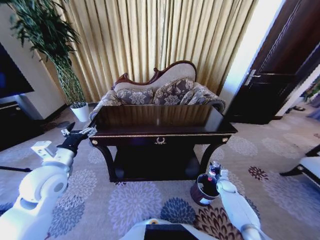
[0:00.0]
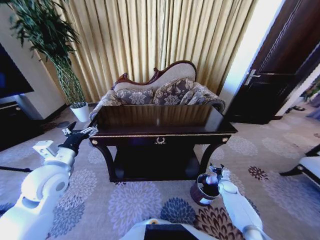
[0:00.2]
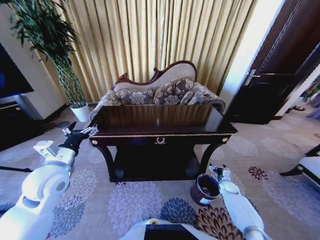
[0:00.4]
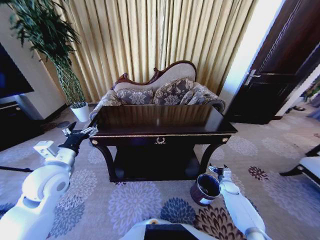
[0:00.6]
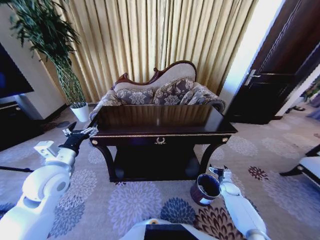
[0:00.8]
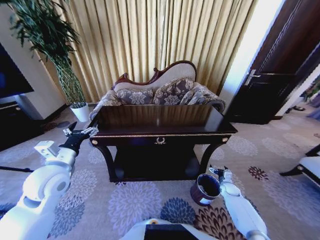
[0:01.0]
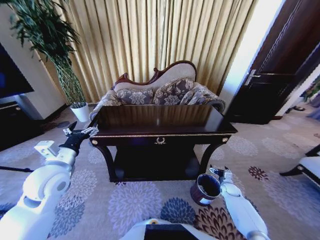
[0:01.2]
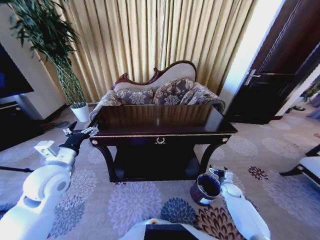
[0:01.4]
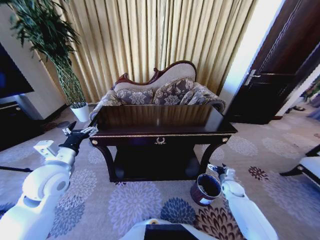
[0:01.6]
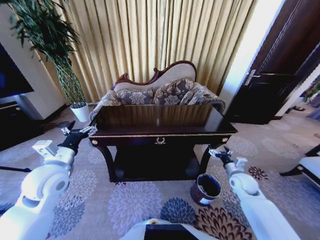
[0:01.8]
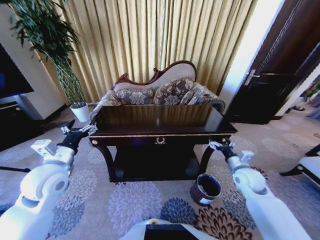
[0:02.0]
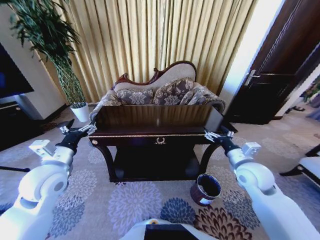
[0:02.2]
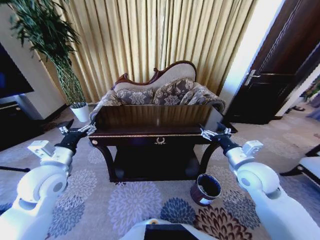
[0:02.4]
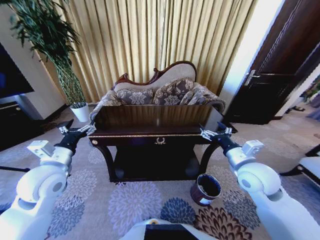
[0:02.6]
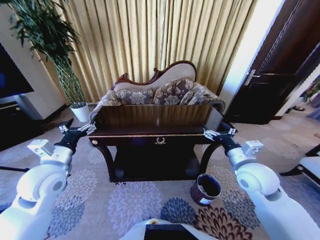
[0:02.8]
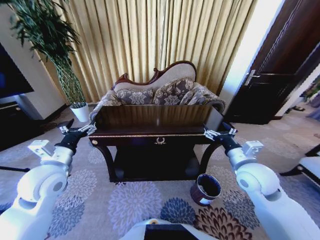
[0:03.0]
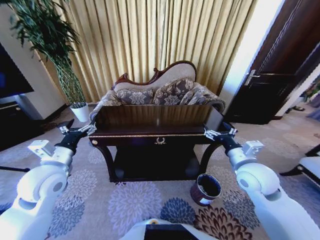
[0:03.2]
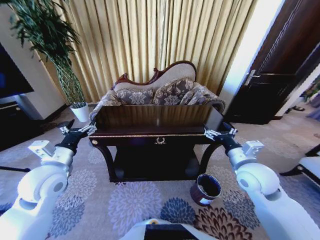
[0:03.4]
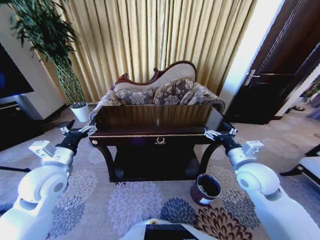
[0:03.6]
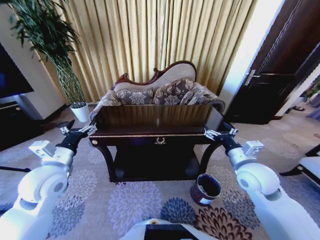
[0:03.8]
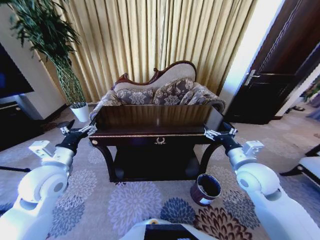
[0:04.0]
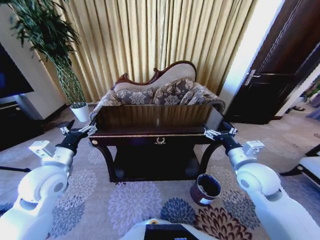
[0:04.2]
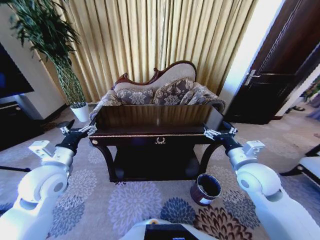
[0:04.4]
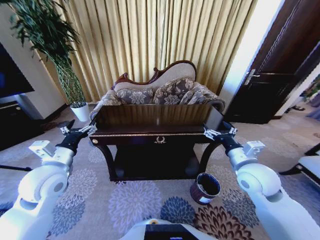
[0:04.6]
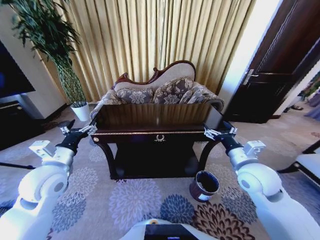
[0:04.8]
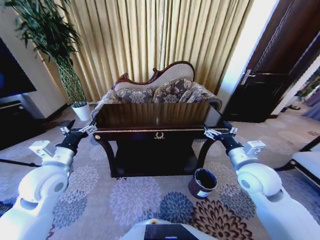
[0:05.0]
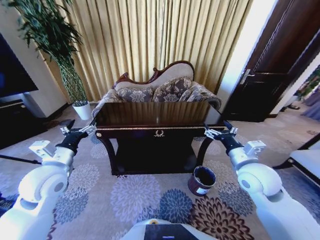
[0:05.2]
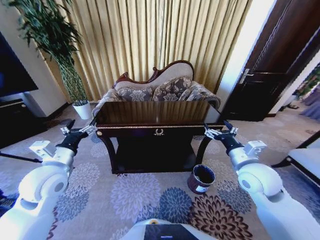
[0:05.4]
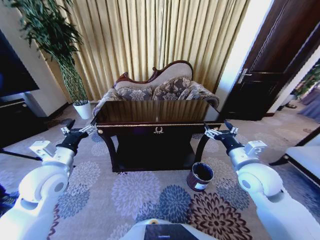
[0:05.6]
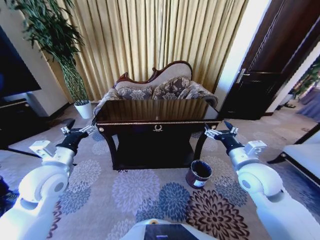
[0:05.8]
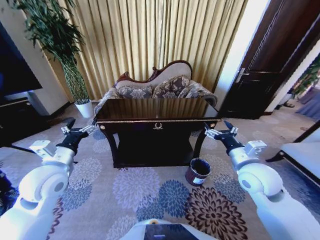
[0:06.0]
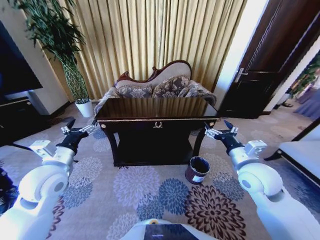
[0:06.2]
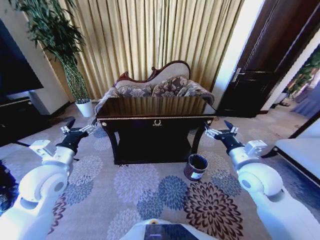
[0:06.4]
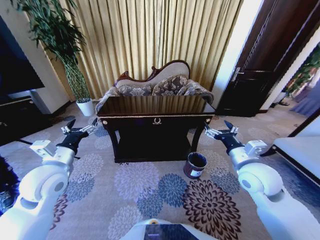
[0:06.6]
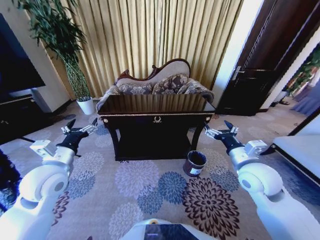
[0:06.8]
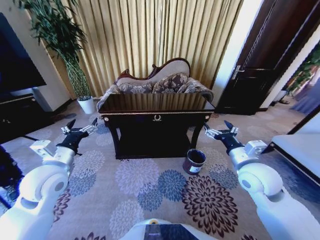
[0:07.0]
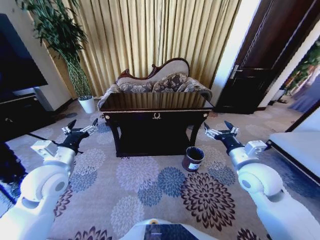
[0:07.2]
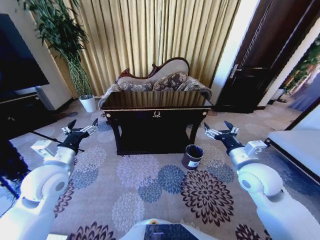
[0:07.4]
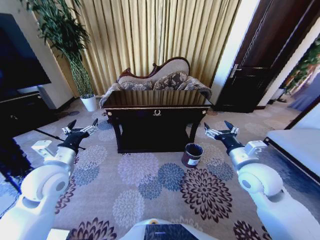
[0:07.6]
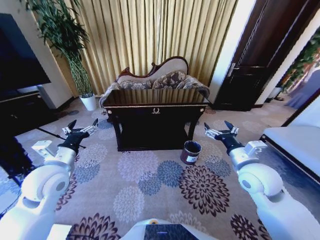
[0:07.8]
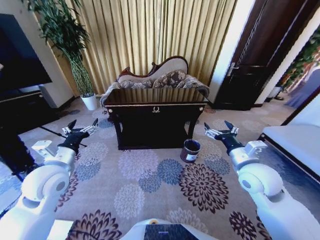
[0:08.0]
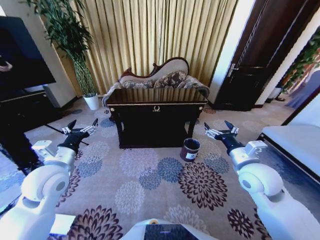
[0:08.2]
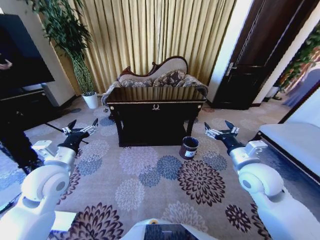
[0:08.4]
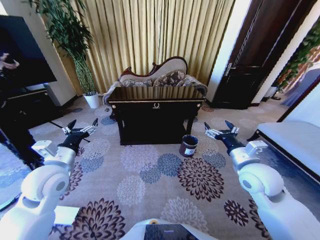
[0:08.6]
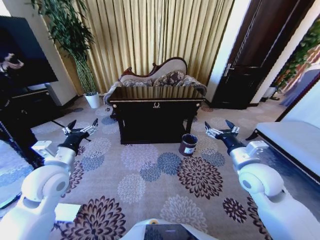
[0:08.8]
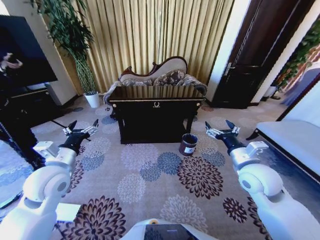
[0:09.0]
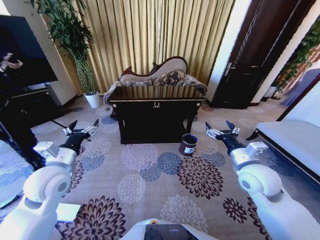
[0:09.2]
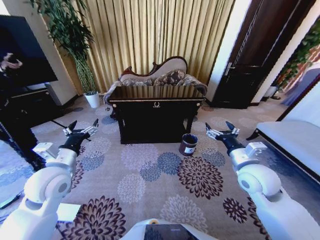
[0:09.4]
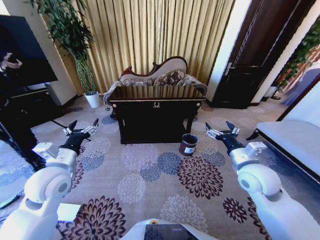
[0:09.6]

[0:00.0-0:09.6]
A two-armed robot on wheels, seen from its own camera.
Task of the whole recording: Move to the front of the table and place the trash on the table into the trash bin.
0:00.0 to 0:01.6: The right gripper is displaced upward by approximately 10 cm, and opens.
0:01.6 to 0:03.2: The right gripper goes approximately 30 cm upward and to the left.
0:03.2 to 0:04.8: Neither gripper changes place.

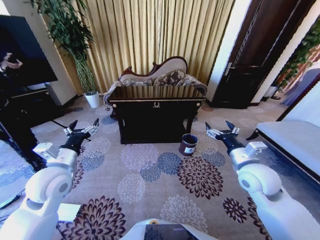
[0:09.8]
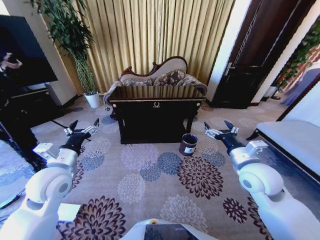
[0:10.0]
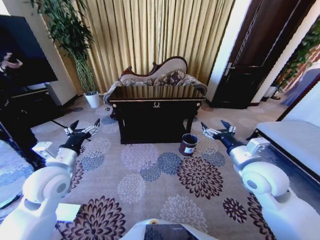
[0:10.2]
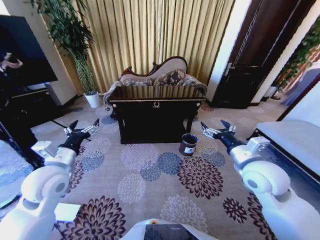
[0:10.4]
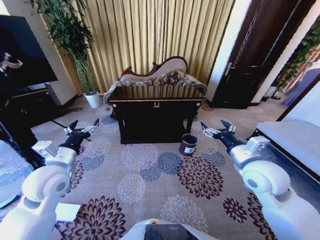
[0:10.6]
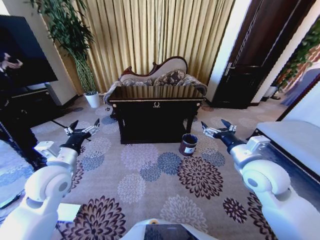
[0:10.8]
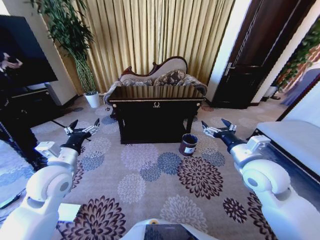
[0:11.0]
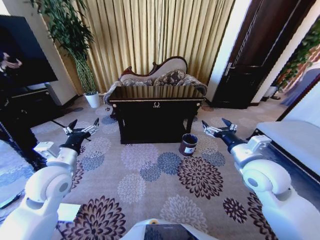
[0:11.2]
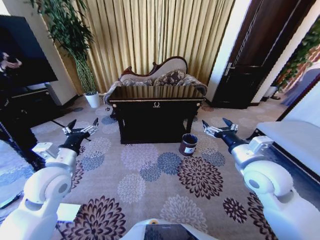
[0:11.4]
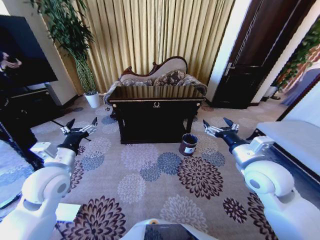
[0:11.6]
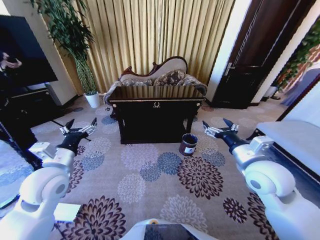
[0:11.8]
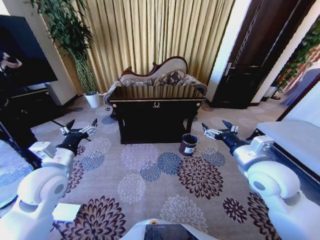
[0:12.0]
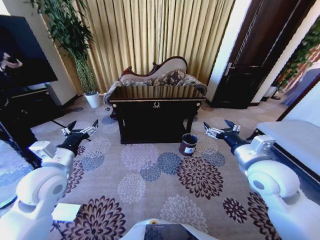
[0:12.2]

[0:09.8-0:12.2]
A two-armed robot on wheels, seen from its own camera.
Task of the whole recording: Move to the front of the table and place the trash on the table into the trash bin.
0:09.8 to 0:12.2: The grippers move only a little.

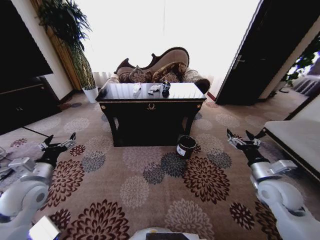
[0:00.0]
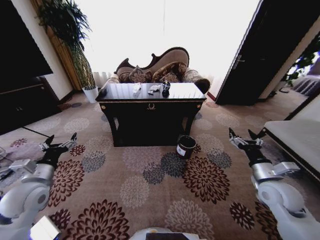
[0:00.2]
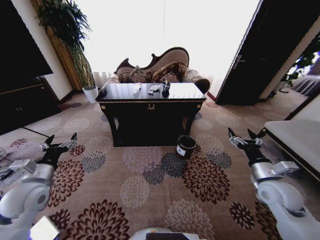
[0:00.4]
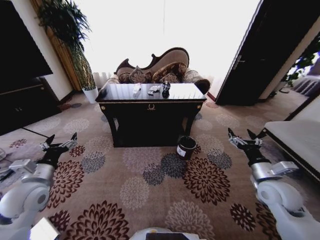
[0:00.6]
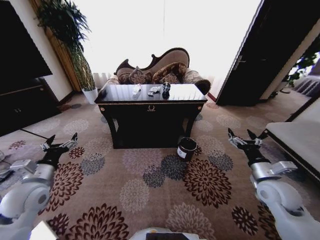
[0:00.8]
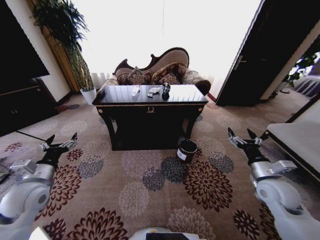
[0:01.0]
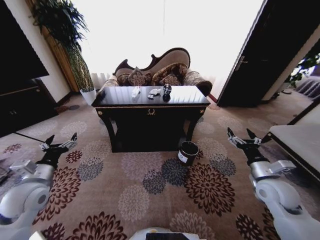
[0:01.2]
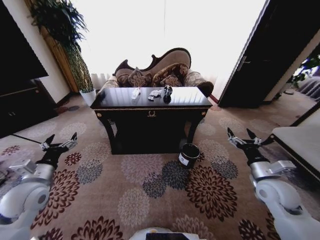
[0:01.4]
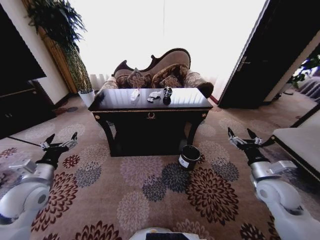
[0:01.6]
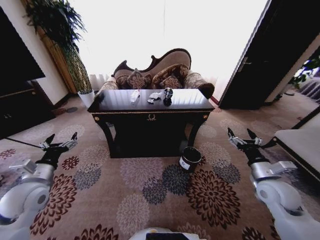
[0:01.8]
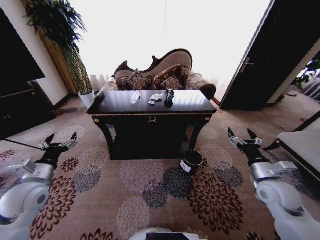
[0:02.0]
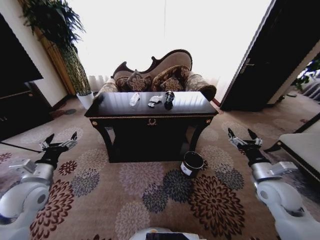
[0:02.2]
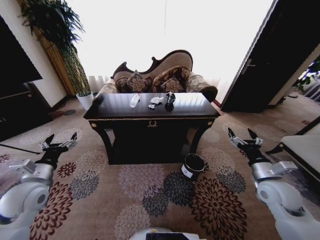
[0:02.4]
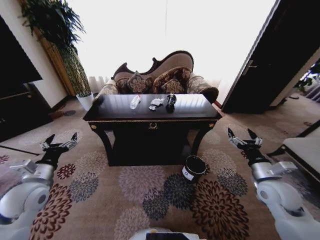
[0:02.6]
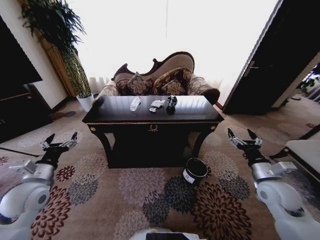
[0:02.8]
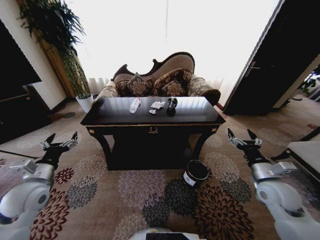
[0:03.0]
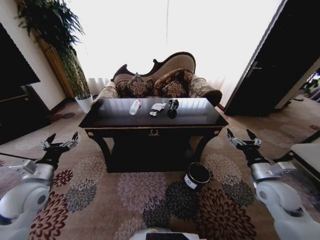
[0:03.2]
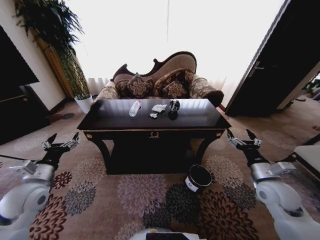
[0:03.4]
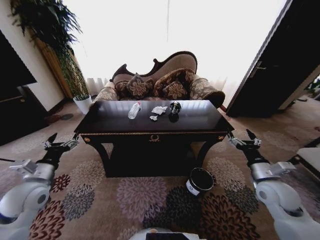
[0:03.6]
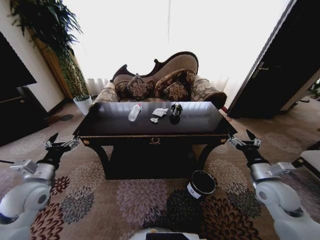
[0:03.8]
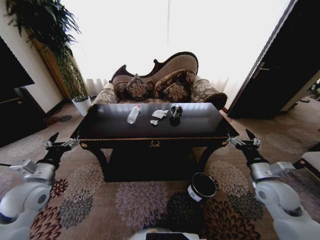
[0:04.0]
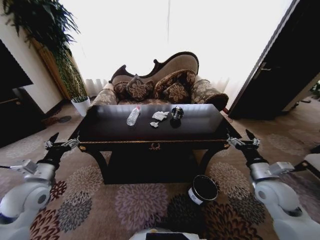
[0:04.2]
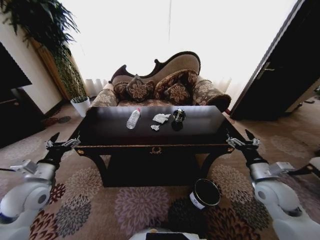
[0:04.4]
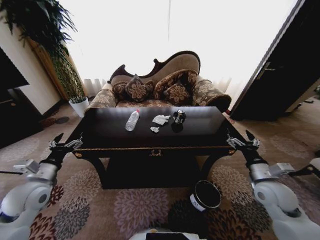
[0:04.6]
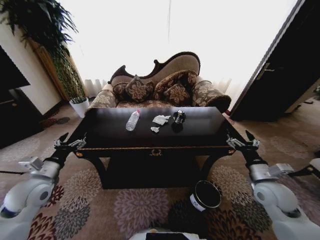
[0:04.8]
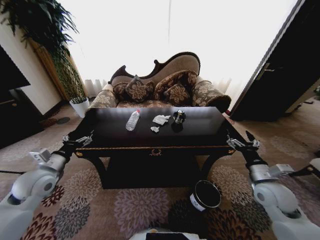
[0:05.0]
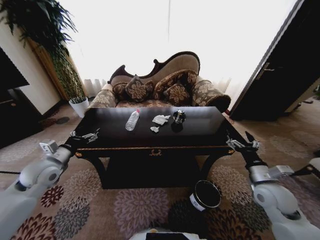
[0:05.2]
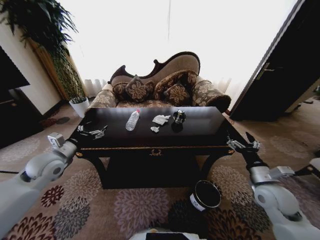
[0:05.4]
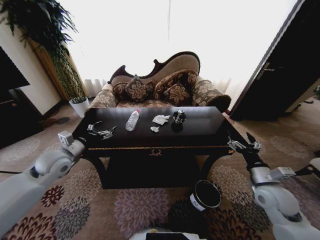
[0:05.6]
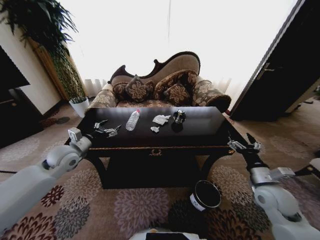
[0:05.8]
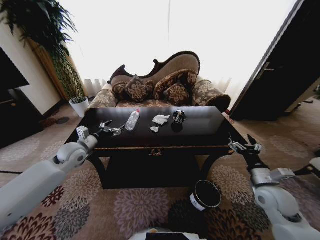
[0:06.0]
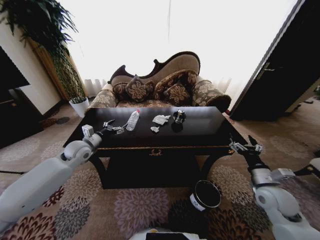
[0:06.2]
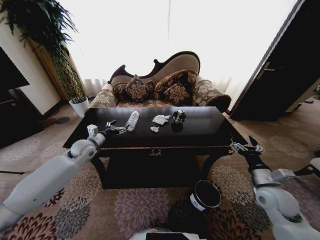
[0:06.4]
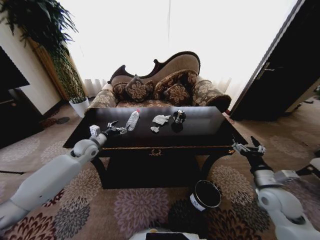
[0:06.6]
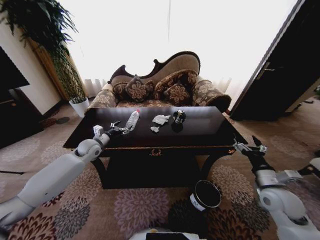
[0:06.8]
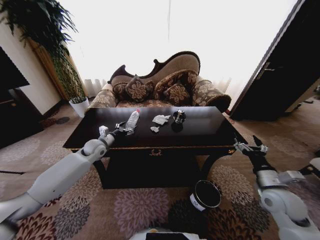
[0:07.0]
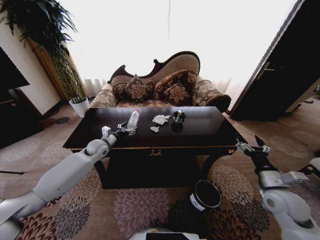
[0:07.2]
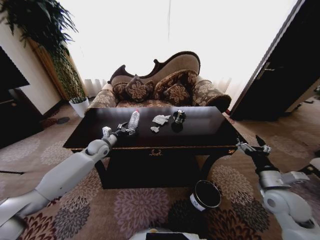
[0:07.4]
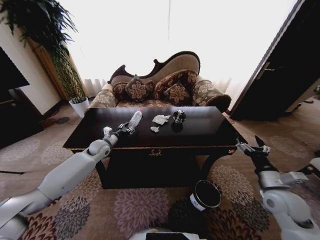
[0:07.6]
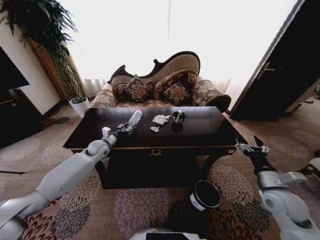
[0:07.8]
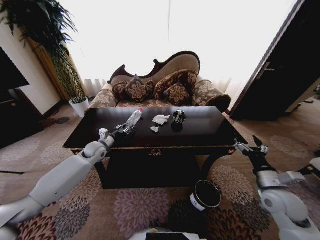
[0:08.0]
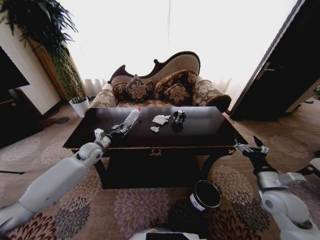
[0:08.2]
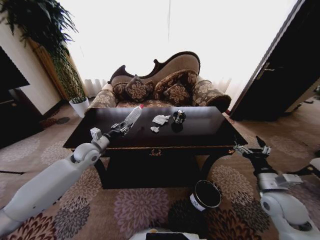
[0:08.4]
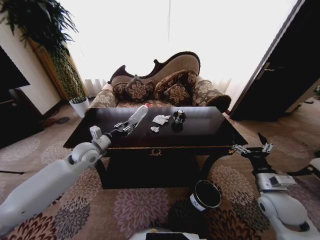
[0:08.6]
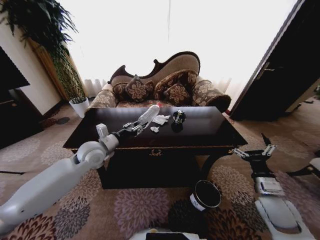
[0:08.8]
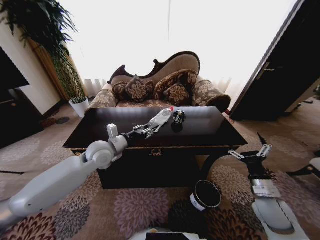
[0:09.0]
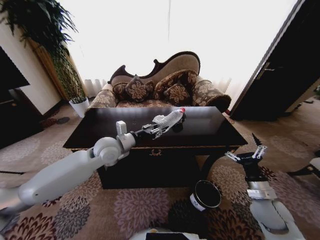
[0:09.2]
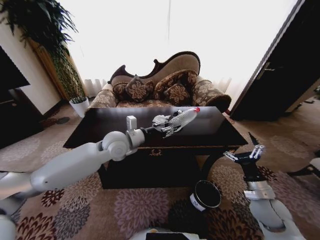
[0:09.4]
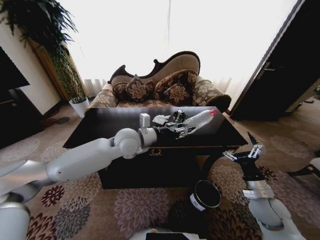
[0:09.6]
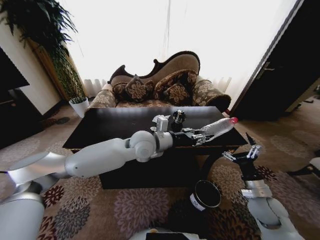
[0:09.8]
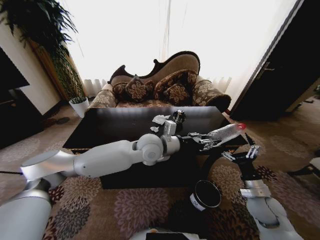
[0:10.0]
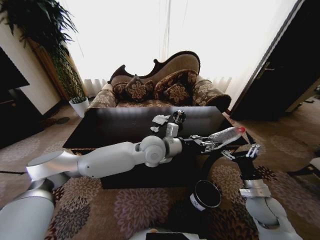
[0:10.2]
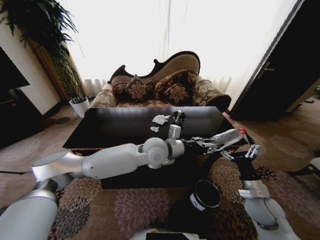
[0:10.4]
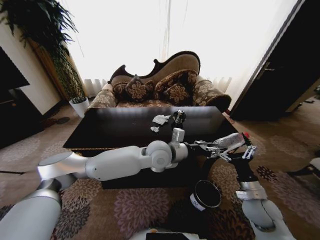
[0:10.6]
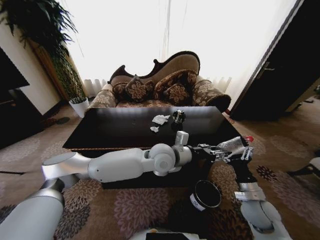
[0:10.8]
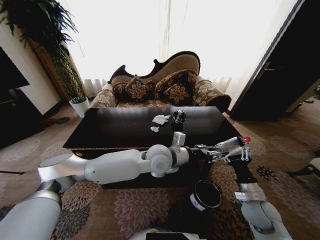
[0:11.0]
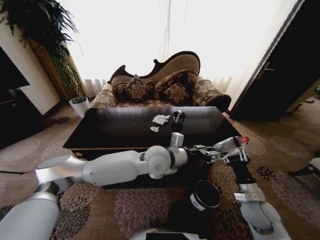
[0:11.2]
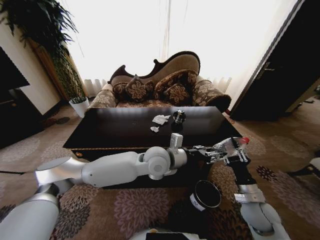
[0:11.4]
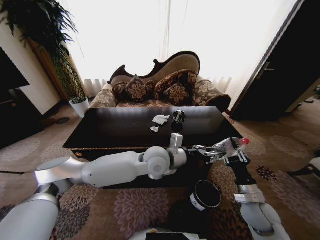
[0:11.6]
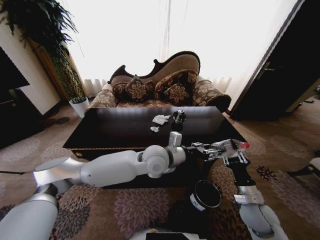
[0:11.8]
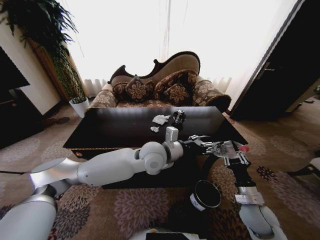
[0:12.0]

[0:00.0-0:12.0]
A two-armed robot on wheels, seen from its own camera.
Task of the whole recording: Move to the front of the table and place the trash on the table into the trash bin.
0:04.4 to 0:06.0: The left gripper travels forward by some 15 cm.
0:06.0 to 0:07.6: The left gripper is displaced forward, downward and to the right by about 10 cm, and closes up.
0:07.6 to 0:09.0: The left gripper shifts approximately 15 cm backward, upward and to the right, and closes.
0:09.0 to 0:10.4: The left gripper goes roughly 20 cm to the right.
0:10.4 to 0:12.0: The right gripper closes up.
